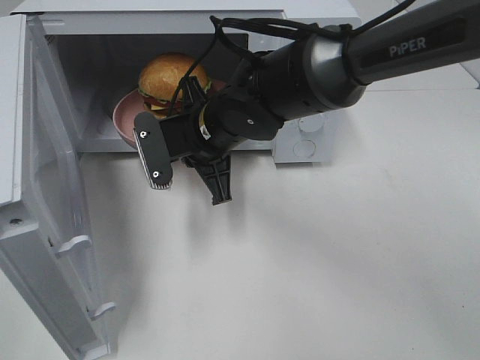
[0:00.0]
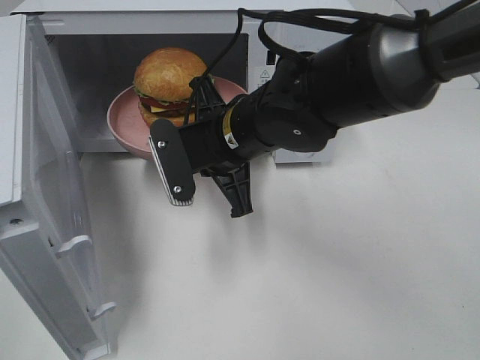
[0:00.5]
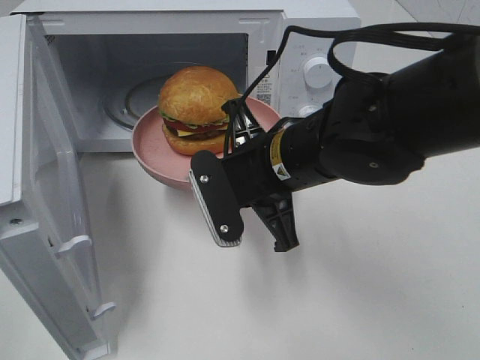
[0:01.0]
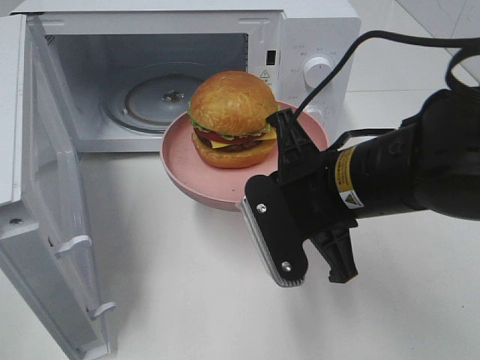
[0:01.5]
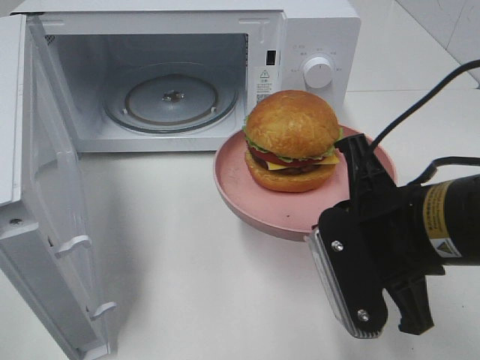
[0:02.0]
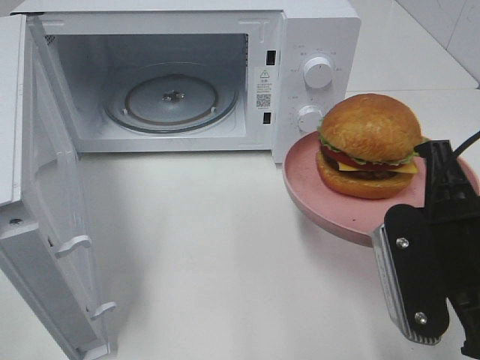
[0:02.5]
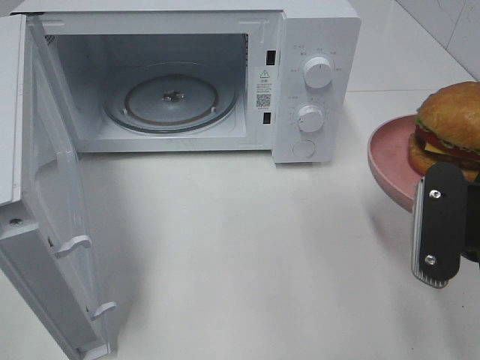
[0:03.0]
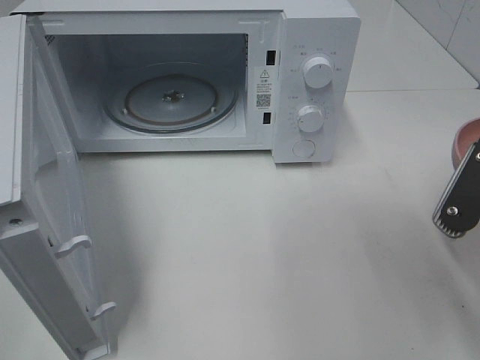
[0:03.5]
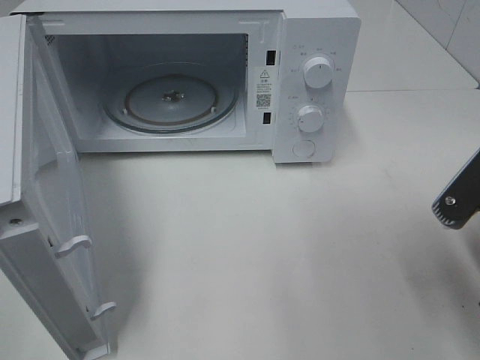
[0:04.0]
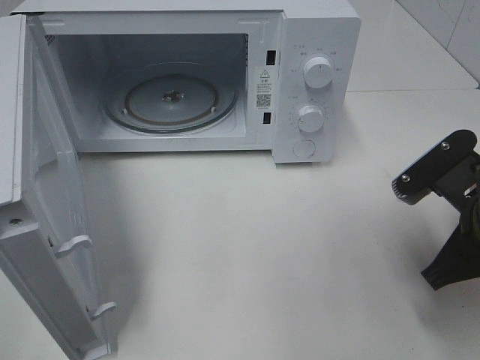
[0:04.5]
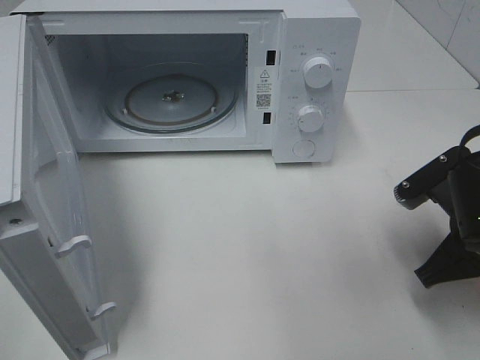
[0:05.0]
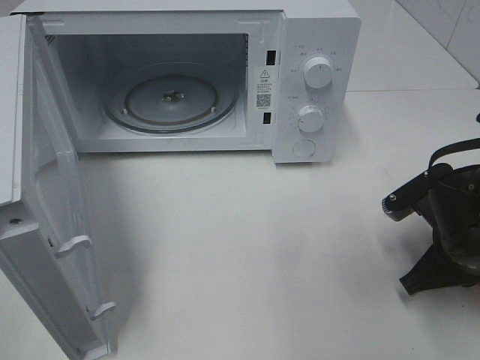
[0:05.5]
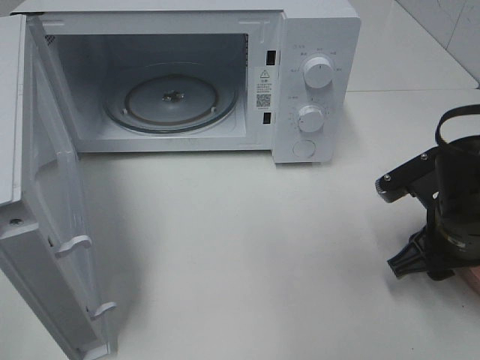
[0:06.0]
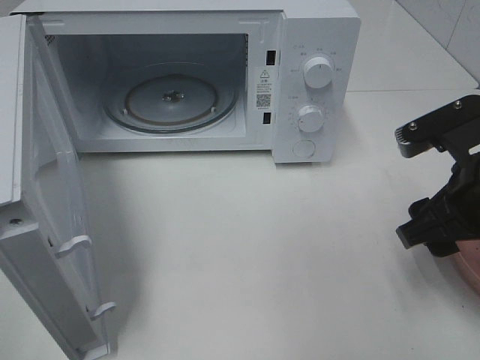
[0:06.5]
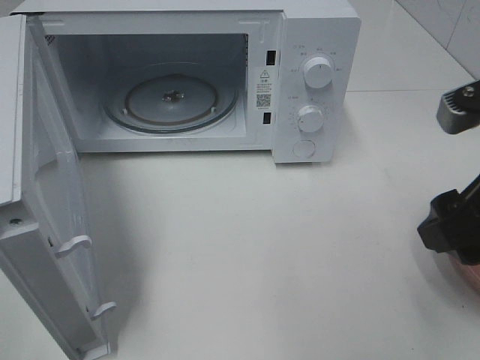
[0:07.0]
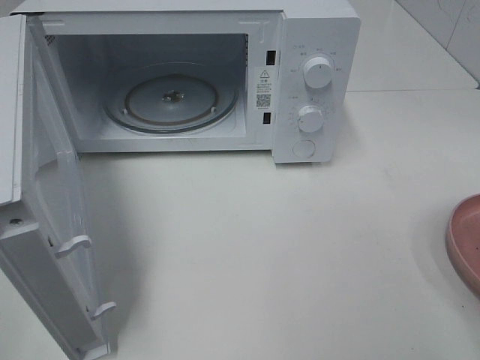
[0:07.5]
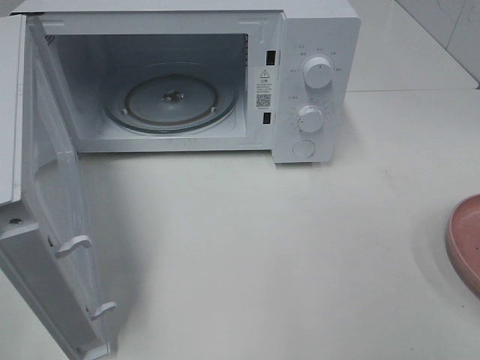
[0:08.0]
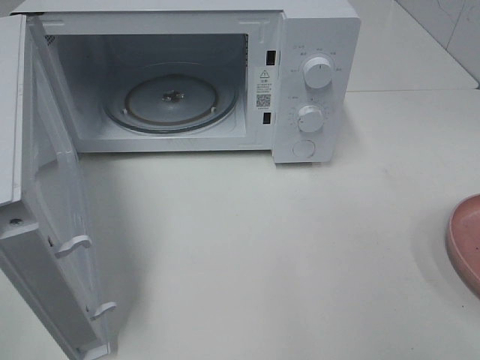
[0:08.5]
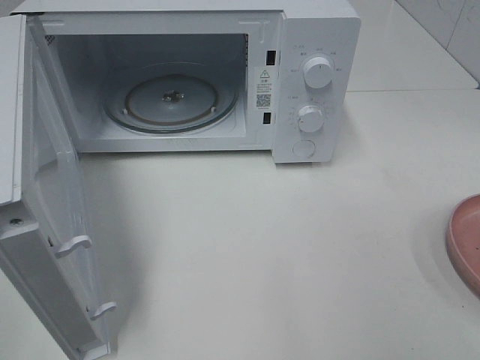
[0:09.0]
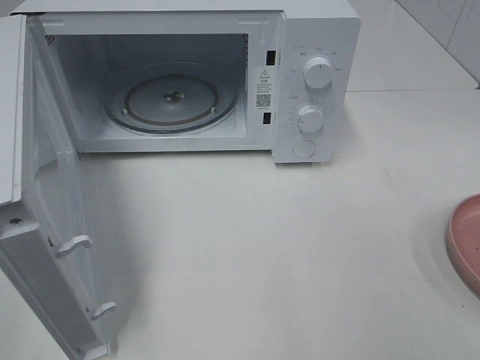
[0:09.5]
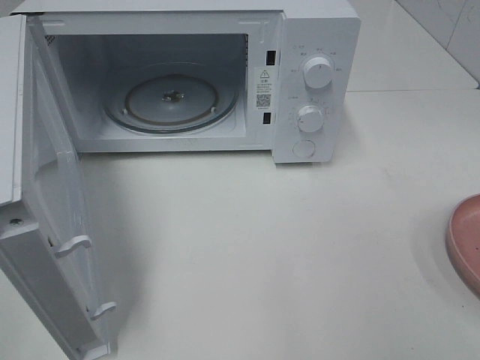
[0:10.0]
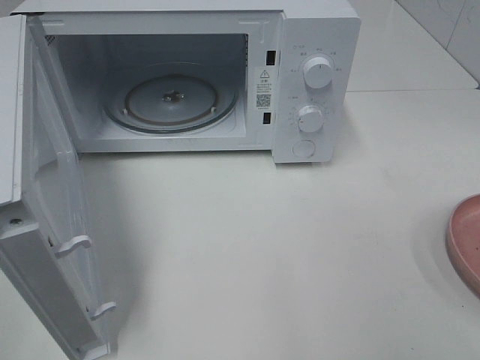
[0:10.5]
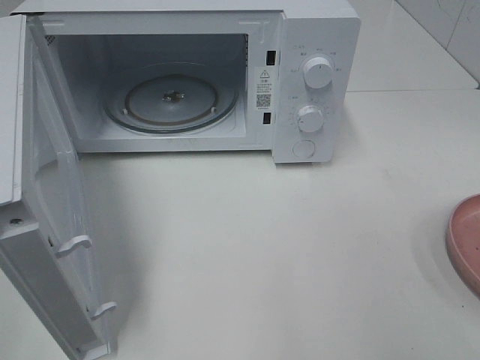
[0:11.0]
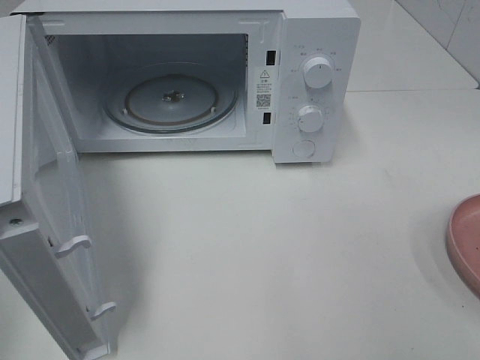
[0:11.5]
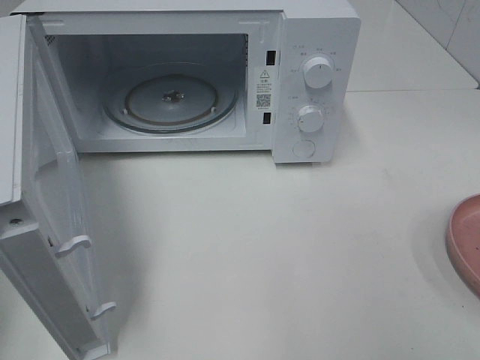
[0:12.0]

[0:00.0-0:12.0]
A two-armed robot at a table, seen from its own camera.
Task of the whole recording: Heat the burger.
Step, 0:00.0 to 0:05.5: Right hand: place the plate on the table.
0:00.0 to 0:02.0: The right gripper goes roughly 25 cm backward and to the right.
0:02.0 to 0:04.0: The right gripper heads to the right, covering approximately 10 cm.
0:04.0 to 0:06.0: The right gripper goes about 10 cm forward and downward, and opens up.
0:06.0 to 0:08.0: The right gripper goes about 25 cm backward and upward.

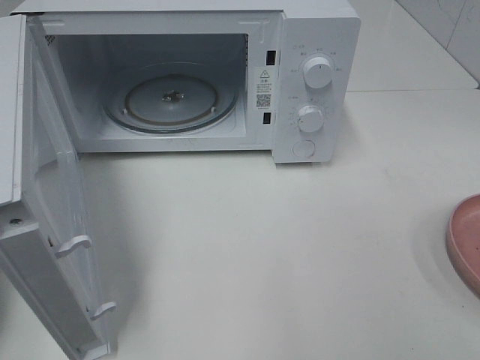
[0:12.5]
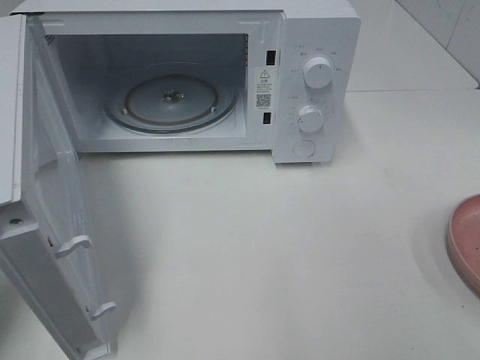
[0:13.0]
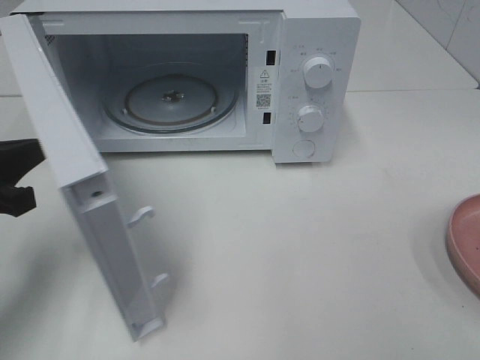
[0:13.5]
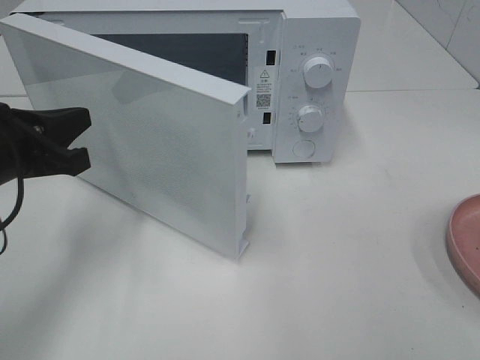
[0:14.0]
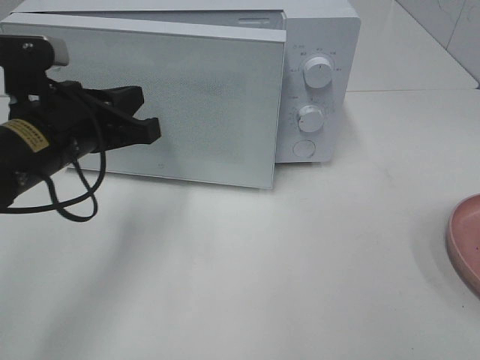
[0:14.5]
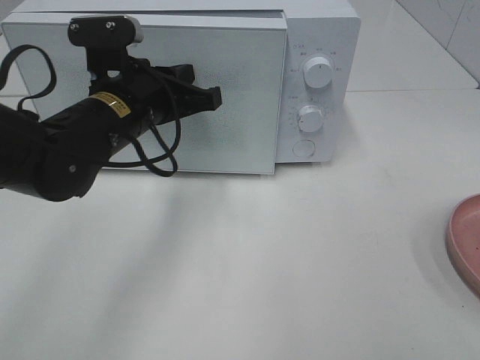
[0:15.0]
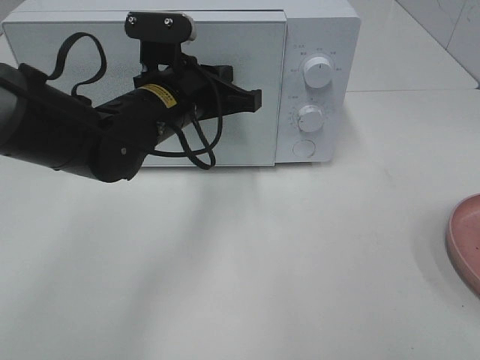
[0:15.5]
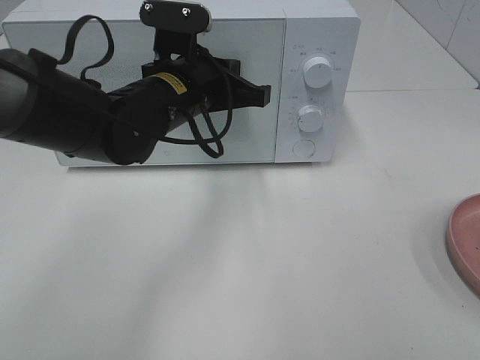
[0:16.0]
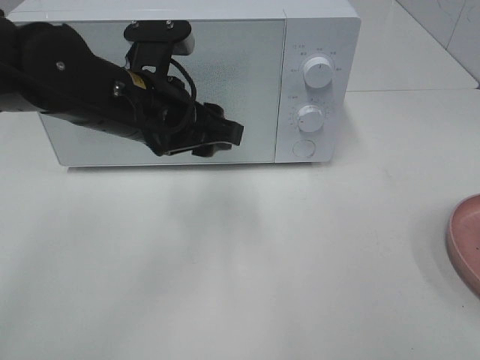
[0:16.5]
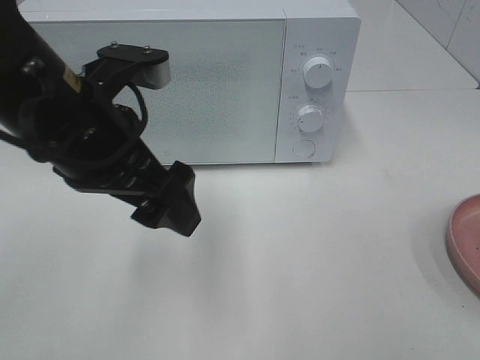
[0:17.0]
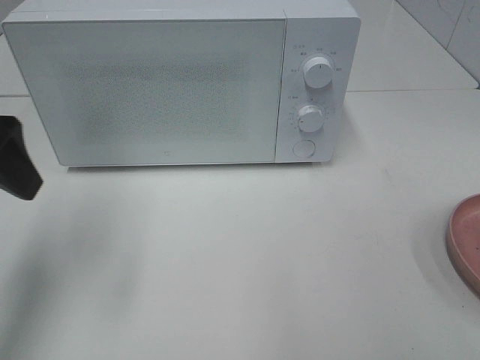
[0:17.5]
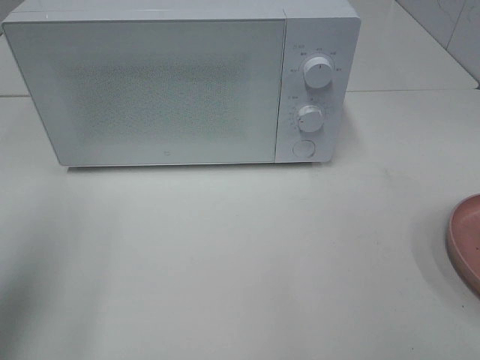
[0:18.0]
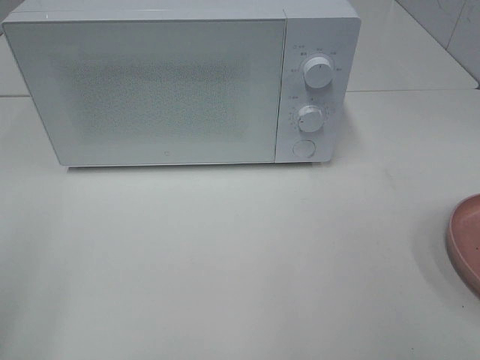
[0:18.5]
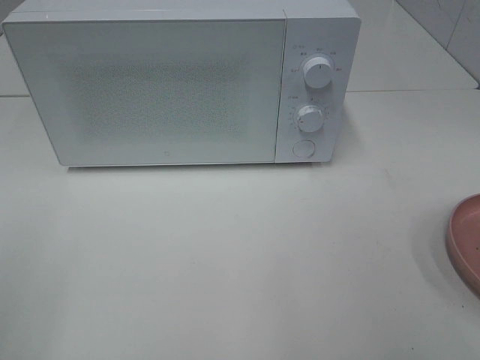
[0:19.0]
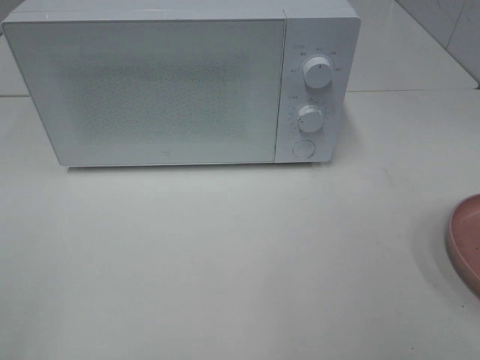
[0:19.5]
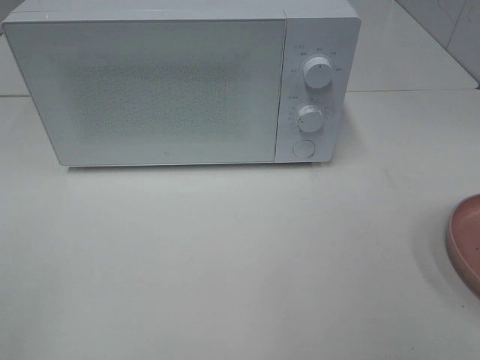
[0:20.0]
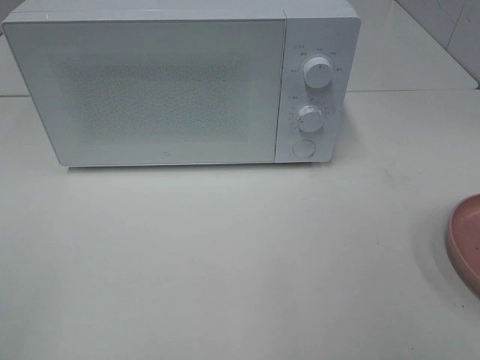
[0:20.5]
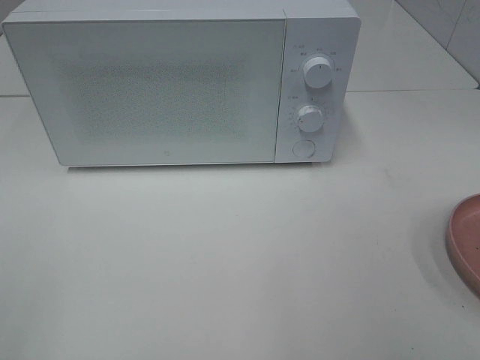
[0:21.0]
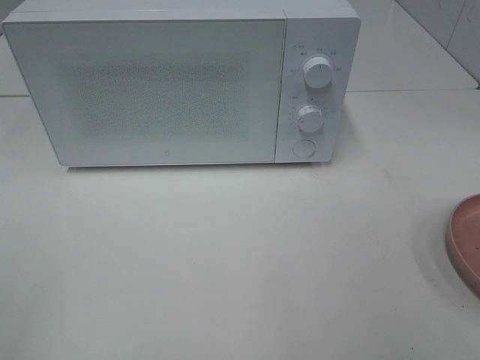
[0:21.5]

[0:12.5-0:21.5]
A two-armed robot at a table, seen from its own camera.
Task of the whole recording: Heat the burger.
Step, 0:12.5 to 0:16.0: Left hand: close the microwave door.
0:12.5 to 0:14.5: The left gripper shifts about 20 cm to the right and forward.
0:14.5 to 0:17.0: The left gripper goes approximately 5 cm upward, and opens up.
0:17.0 to 0:19.5: The left gripper heads backward and to the left, covering approximately 30 cm.
0:19.5 to 0:21.5: Neither gripper changes place.

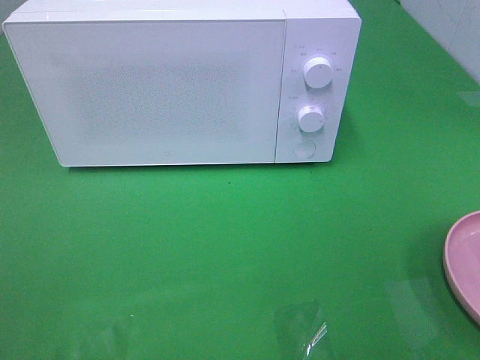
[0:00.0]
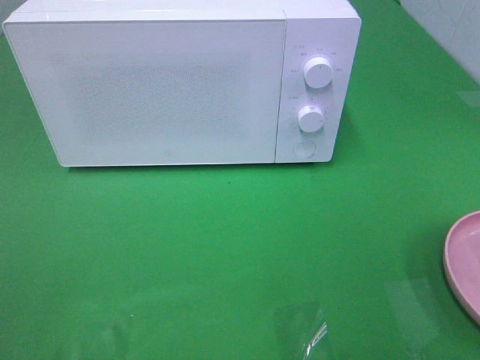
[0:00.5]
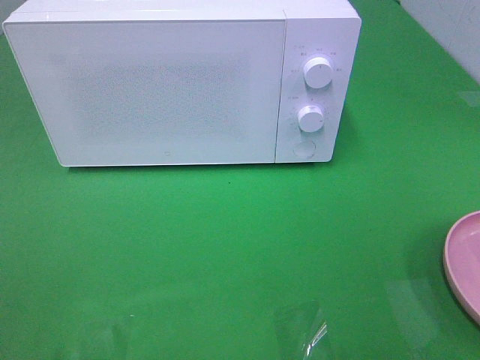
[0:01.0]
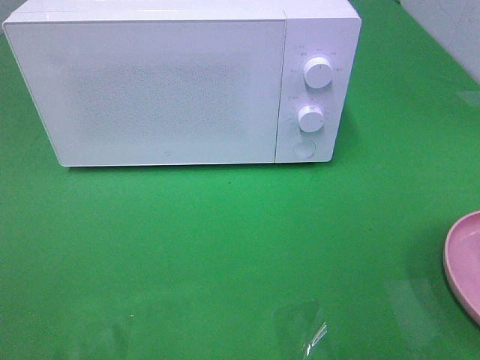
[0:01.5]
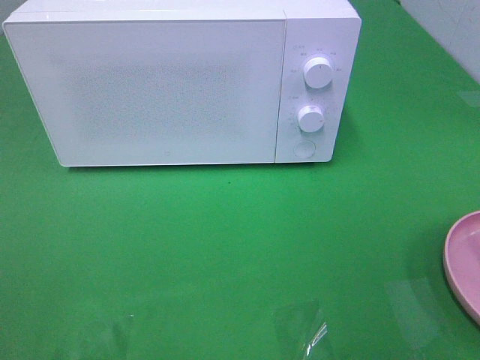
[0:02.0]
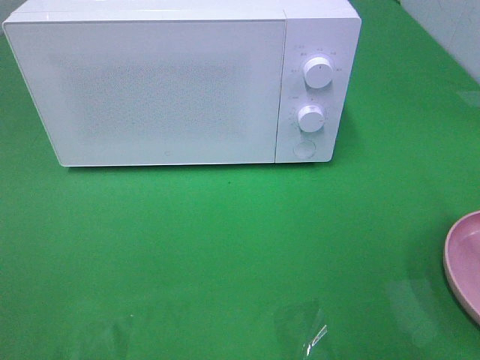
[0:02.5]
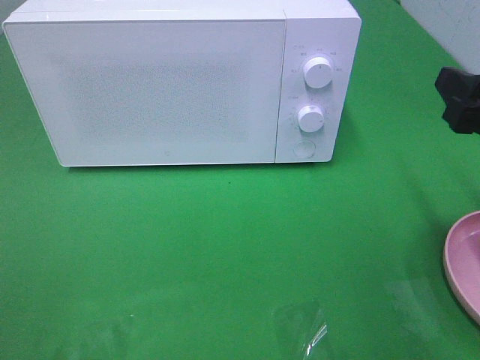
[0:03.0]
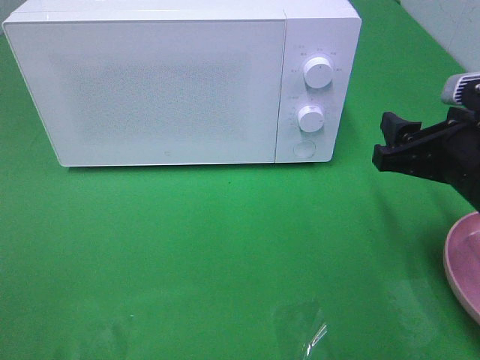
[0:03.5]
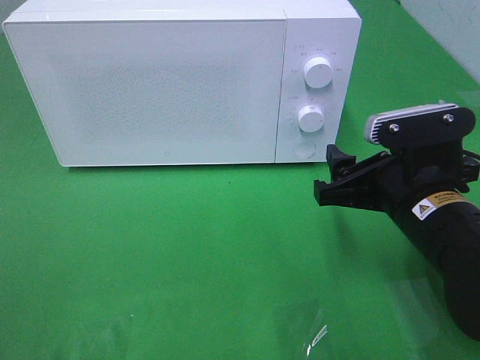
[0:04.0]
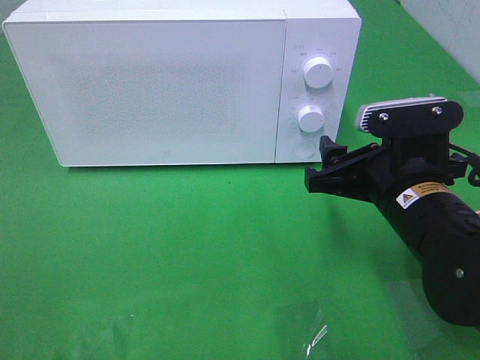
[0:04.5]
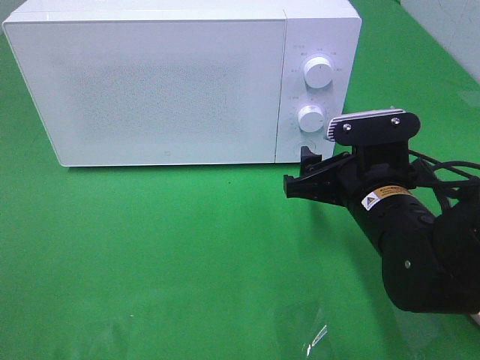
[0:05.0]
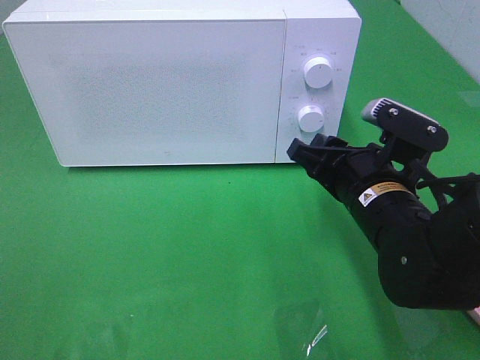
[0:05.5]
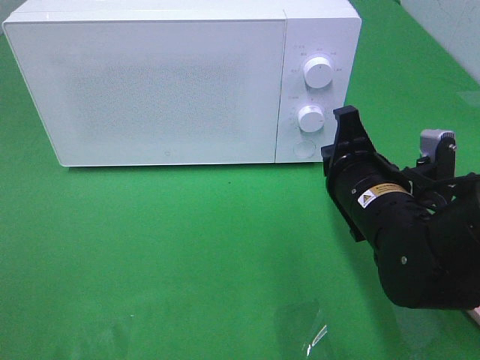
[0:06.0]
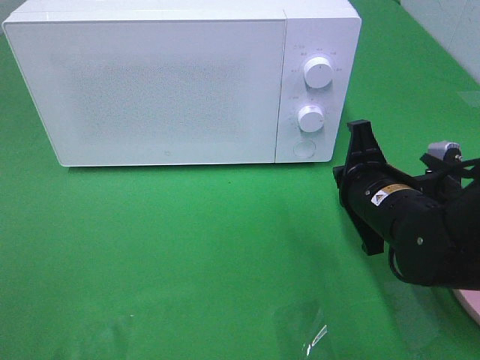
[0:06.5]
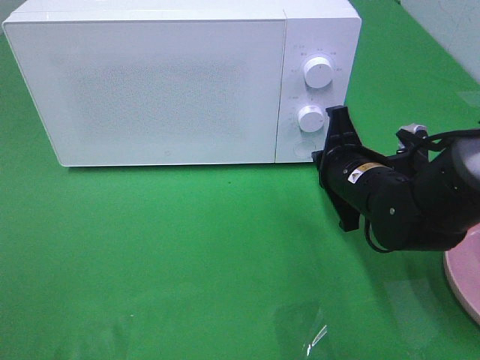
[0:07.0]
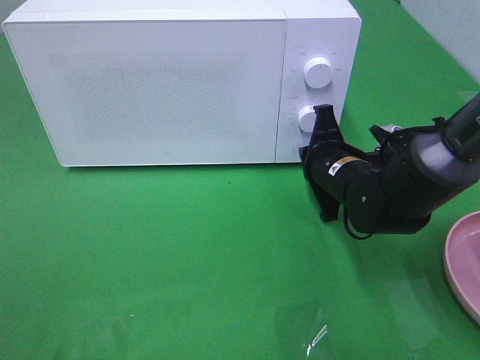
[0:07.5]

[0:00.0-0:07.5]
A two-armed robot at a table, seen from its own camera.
Task of the whole recording: Heat the burger.
0:02.0 to 0:04.0: The right gripper goes roughly 20 cm downward, to the left and forward.
0:05.5 to 0:07.5: The right gripper is displaced forward by about 10 cm, and closes up.
